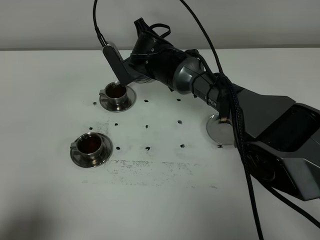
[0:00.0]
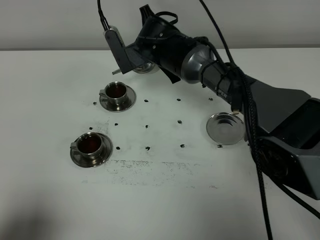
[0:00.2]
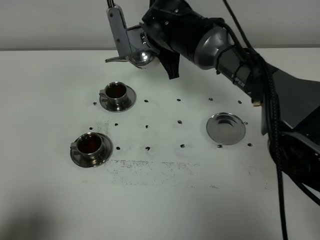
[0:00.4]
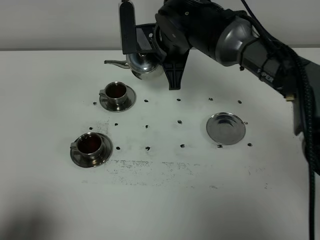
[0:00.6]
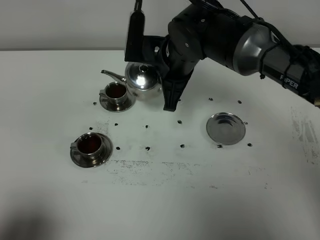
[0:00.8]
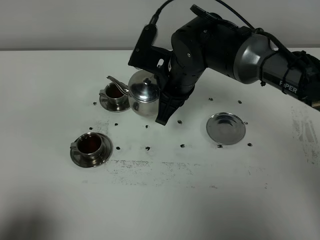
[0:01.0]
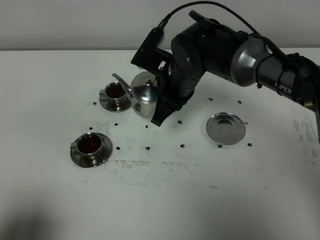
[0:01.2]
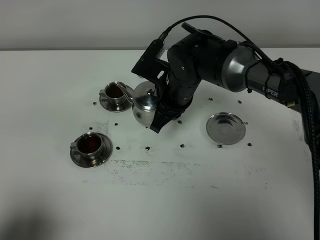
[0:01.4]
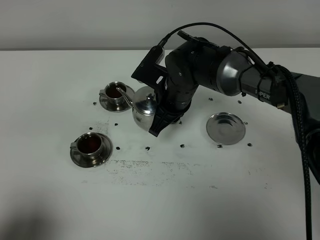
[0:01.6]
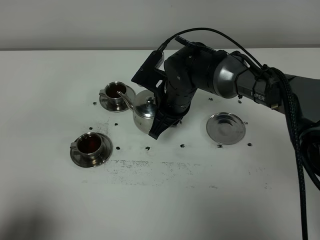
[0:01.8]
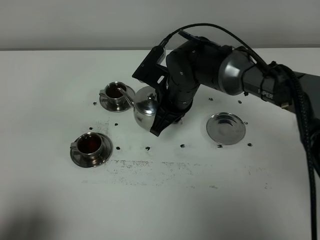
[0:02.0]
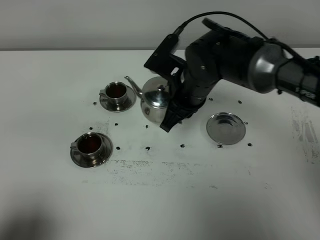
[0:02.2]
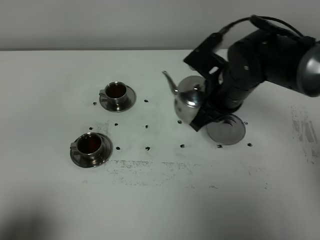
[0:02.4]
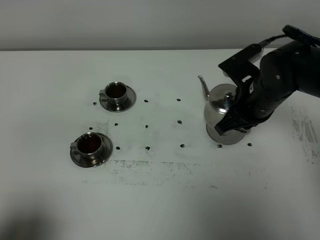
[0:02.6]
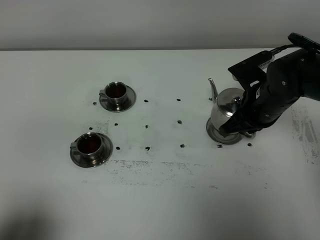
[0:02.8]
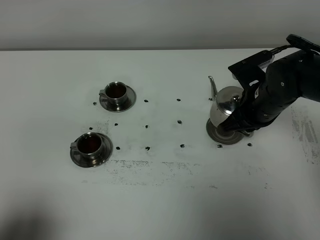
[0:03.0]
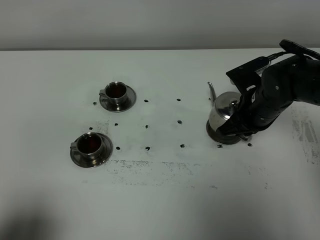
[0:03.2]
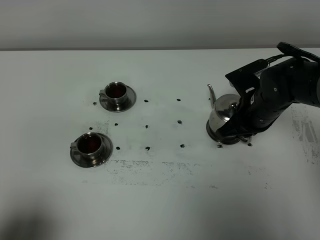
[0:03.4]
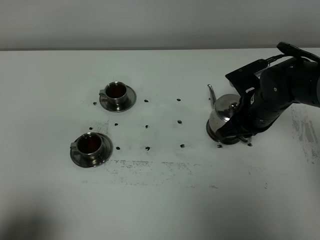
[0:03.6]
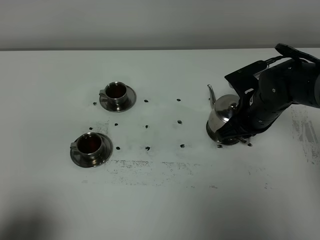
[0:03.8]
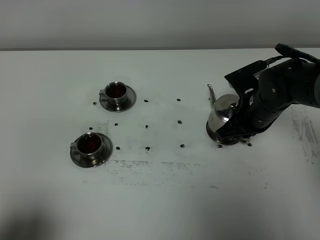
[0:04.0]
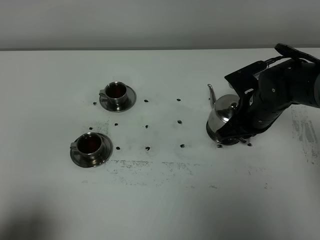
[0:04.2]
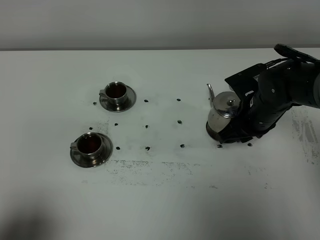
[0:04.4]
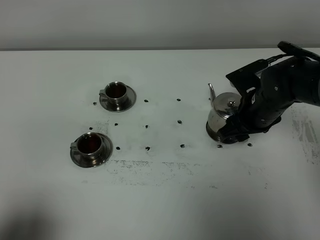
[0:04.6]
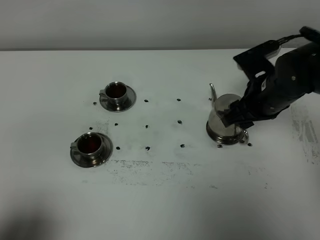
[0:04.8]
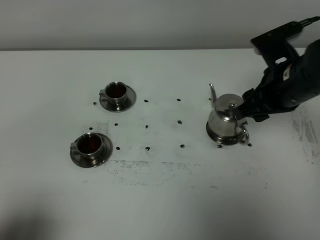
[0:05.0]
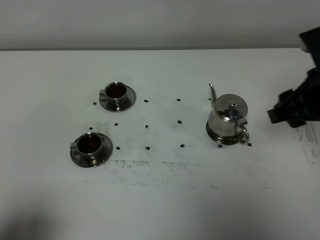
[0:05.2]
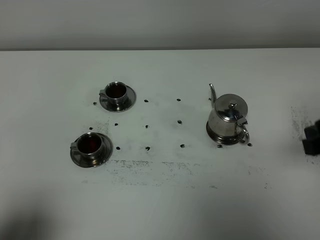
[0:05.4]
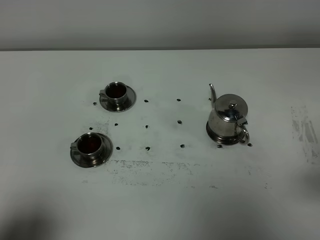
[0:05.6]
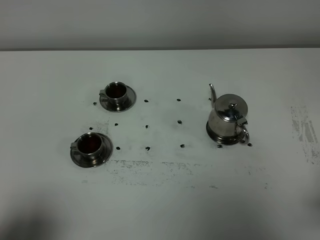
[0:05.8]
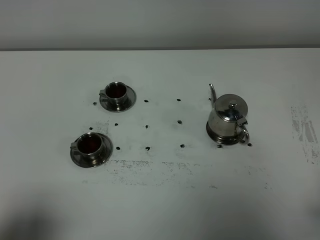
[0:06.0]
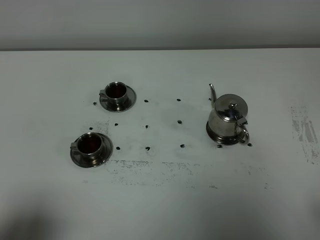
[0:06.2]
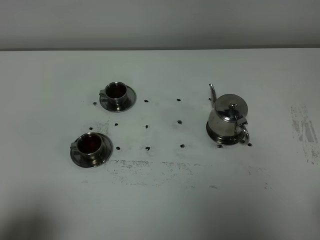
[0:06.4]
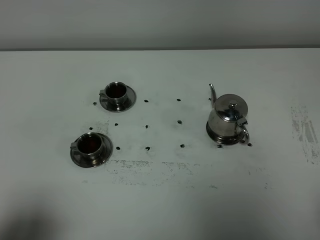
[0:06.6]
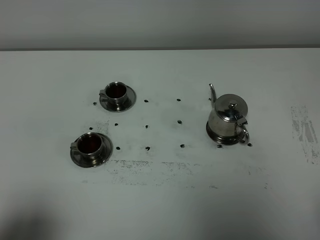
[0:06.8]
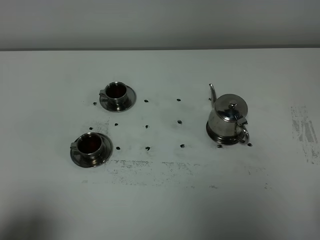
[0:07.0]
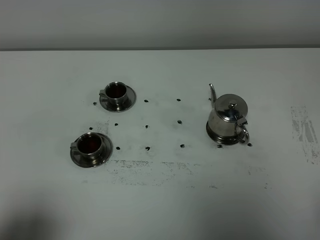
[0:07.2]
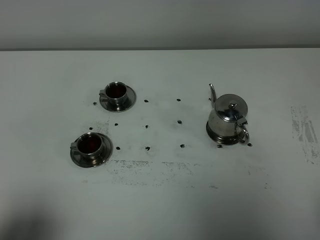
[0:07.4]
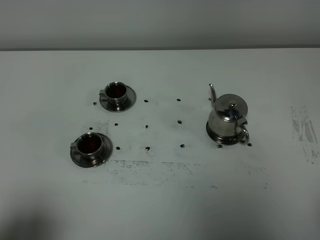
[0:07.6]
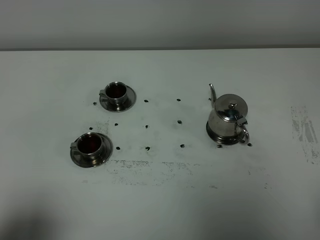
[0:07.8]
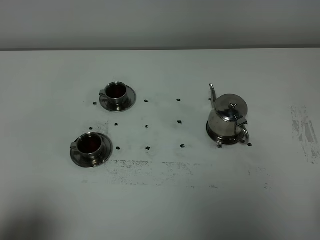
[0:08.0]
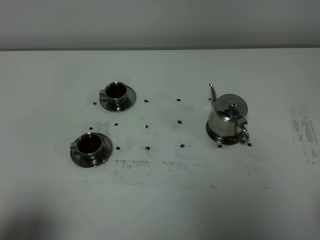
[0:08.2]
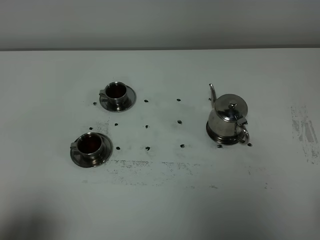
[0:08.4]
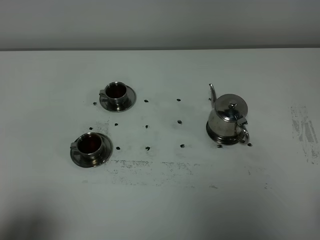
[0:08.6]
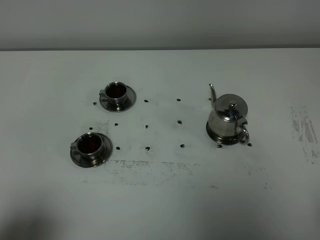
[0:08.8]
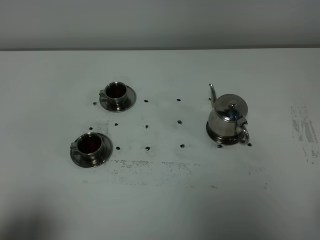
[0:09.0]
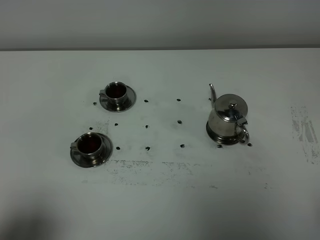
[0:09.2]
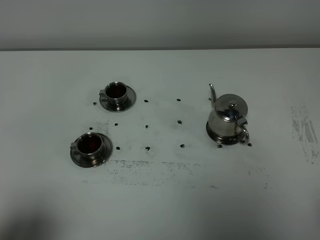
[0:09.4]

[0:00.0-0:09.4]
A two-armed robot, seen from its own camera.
Task of the whole recording: grasp the stainless steel teapot and pour the tea into the two stainless steel teacups one by one, put the stainless steel teapot back in its original place.
0:00.0 to 0:01.6: The right gripper heads backward, covering some 10 cm, and moves approximately 5 cm upward and comes back.
0:01.6 to 0:03.2: The right gripper is displaced to the right by about 15 cm.
0:03.2 to 0:04.8: The right gripper moves upward, approximately 5 cm, and opens its fingers.
0:04.8 to 0:06.2: The right gripper travels backward by roughly 30 cm.
0:07.8 to 0:09.4: Neither gripper changes place.
